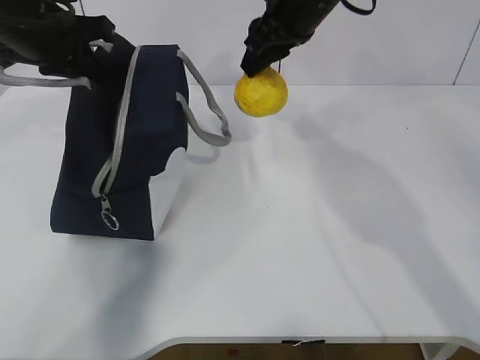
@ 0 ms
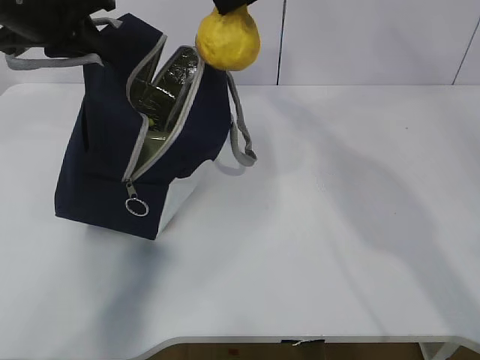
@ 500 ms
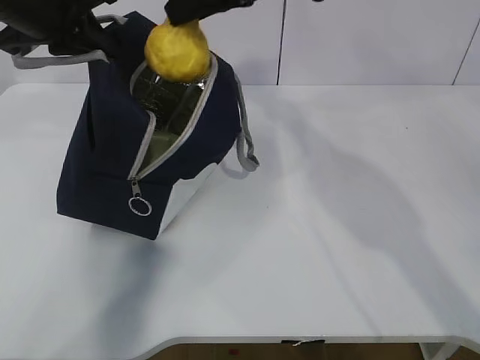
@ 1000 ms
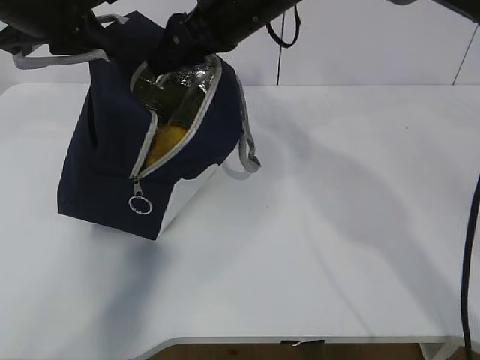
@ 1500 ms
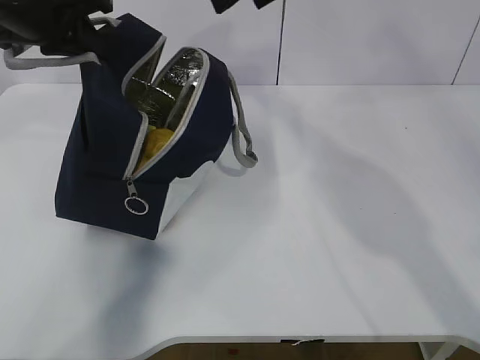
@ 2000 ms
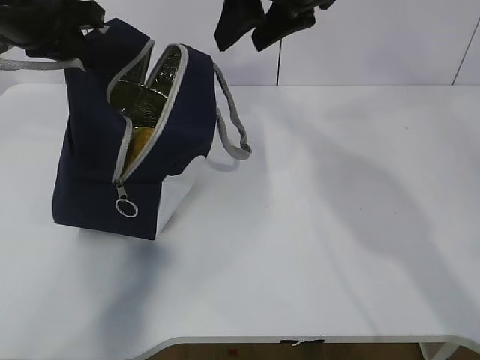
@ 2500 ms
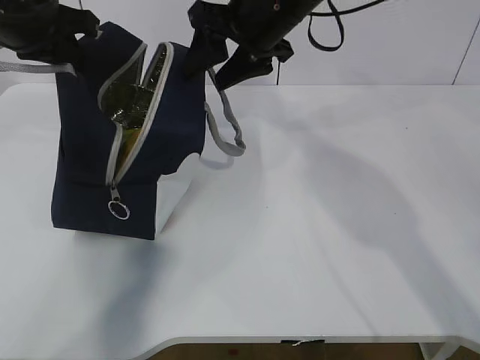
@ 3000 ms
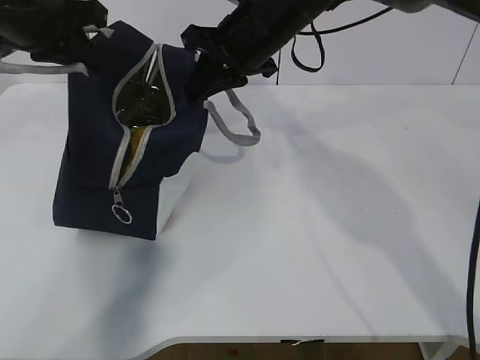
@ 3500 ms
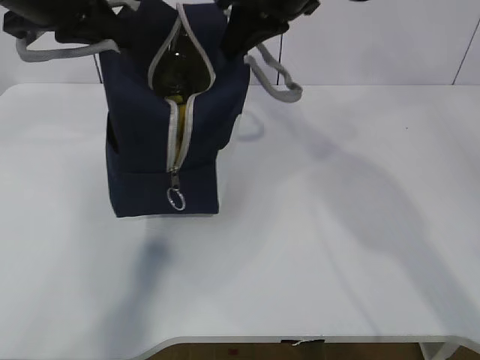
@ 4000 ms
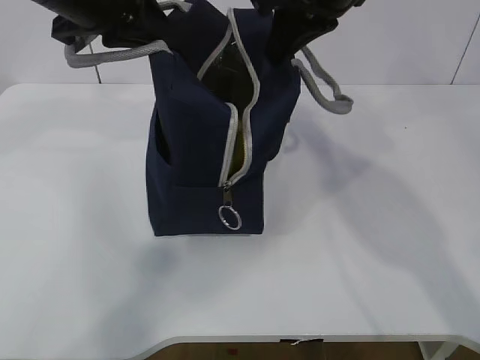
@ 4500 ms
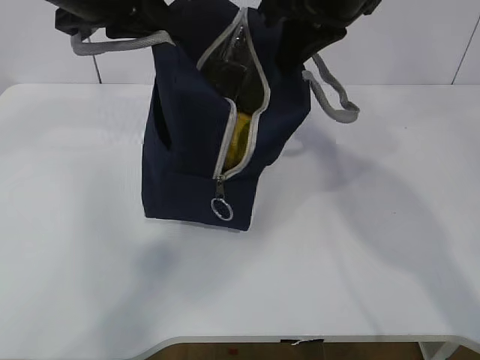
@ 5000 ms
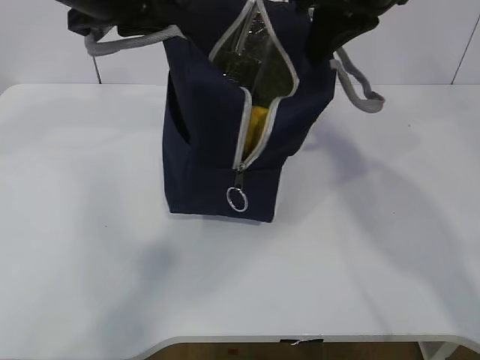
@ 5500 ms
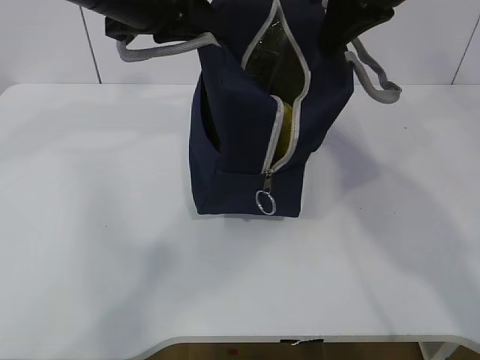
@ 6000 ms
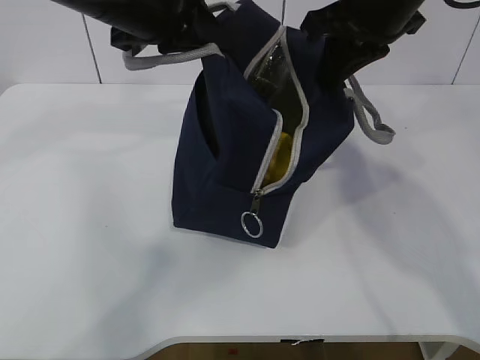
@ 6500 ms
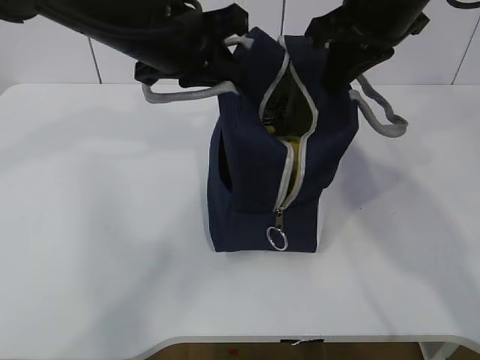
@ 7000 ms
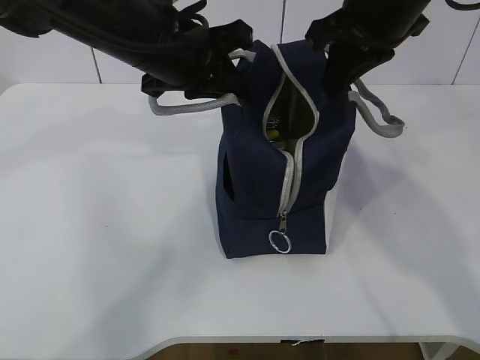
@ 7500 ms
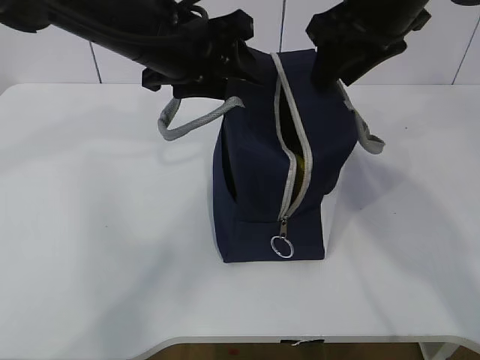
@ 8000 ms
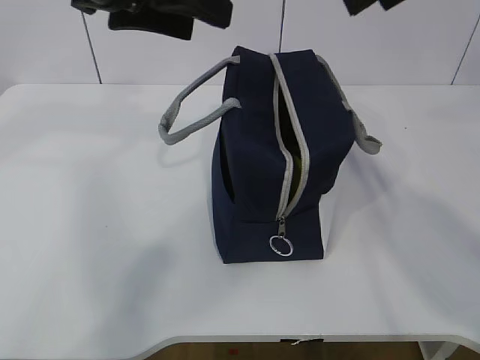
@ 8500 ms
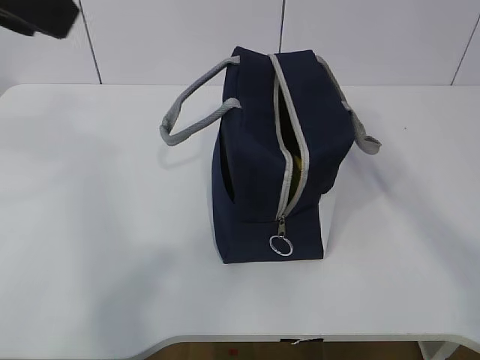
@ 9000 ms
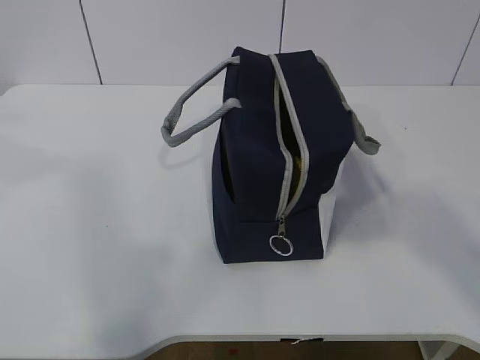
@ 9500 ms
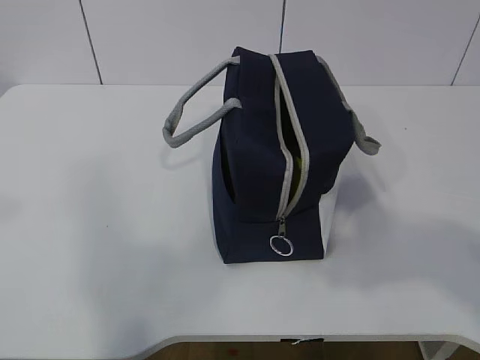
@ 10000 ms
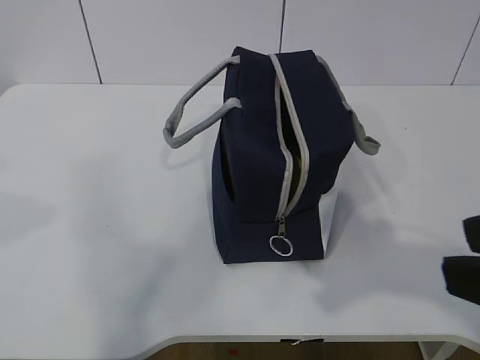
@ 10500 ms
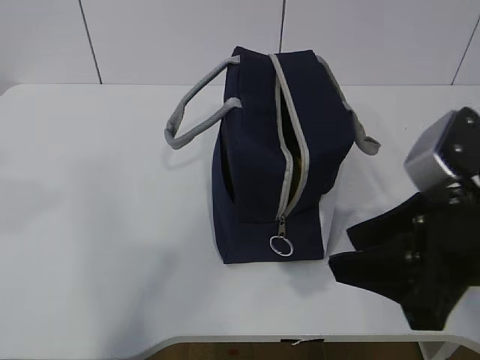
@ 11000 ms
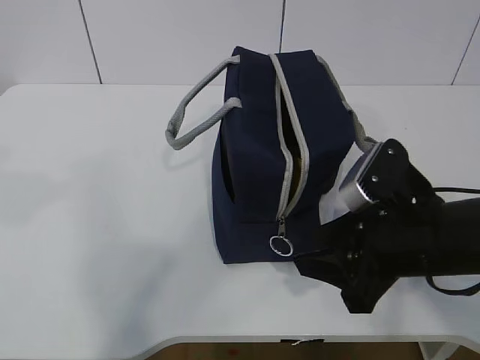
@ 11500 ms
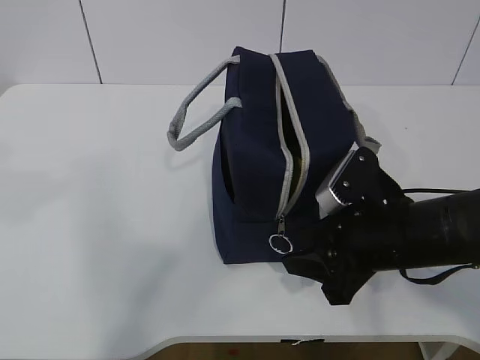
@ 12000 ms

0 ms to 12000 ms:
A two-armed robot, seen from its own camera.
0 ms to 2000 ms: The right gripper moves up and down over about 10 cm, changing direction 2 times, and opens up.
2000 ms to 4000 ms: The right gripper closes its fingers.
4000 ms to 6000 ms: Both grippers move to the right, approximately 10 cm.
6000 ms to 8000 ms: The right gripper opens; the left gripper shifts some 5 cm downward, and opens its fingers.
8000 ms to 10000 ms: The left gripper travels backward, to the left and upward by approximately 35 cm; the right gripper travels backward by about 30 cm.
10000 ms to 12000 ms: The left gripper shifts roughly 5 cm downward. Meanwhile the right gripper travels downward and forward by roughly 30 cm.

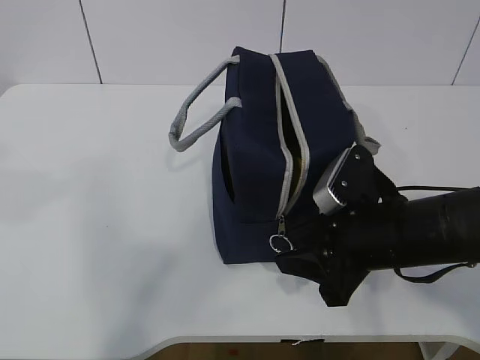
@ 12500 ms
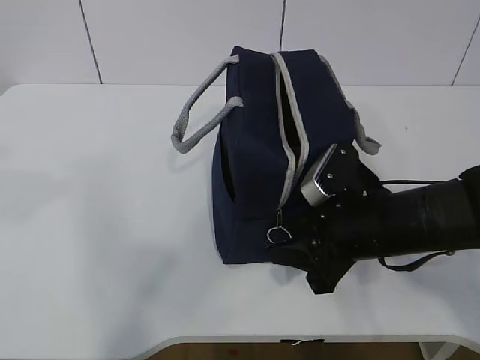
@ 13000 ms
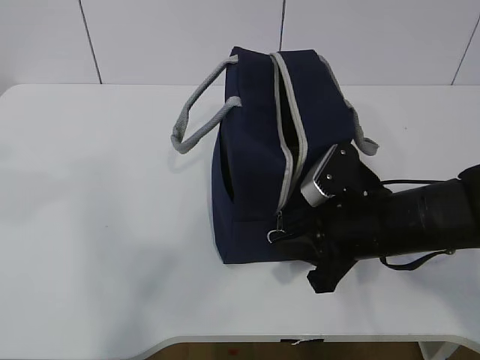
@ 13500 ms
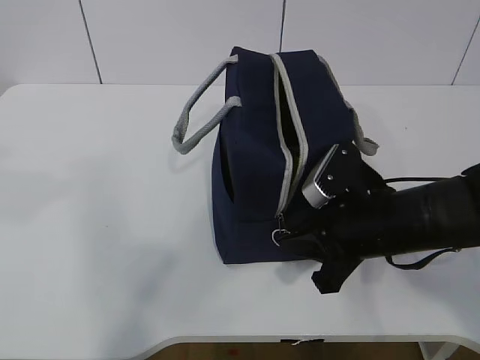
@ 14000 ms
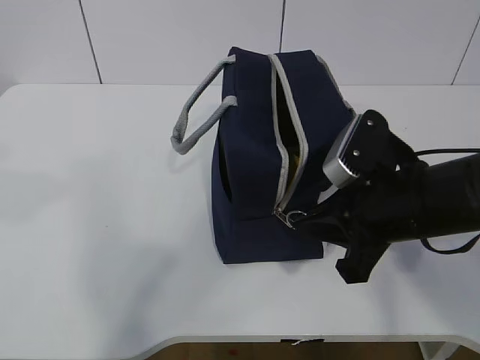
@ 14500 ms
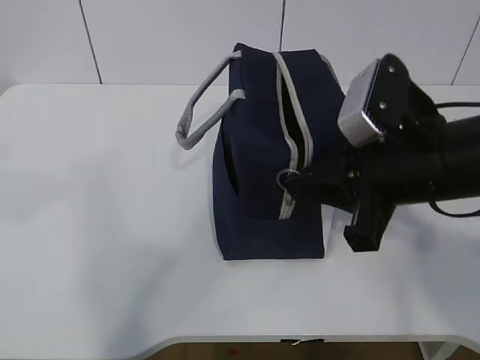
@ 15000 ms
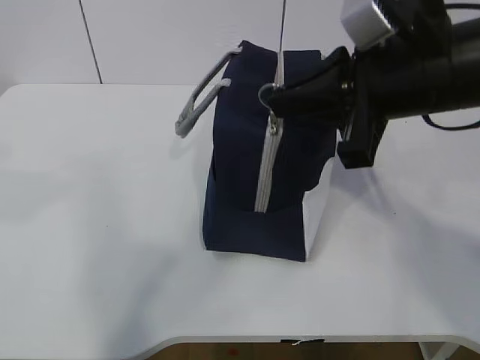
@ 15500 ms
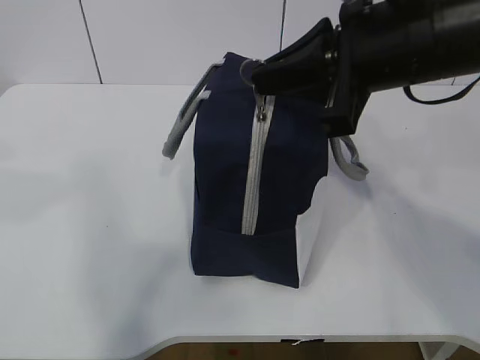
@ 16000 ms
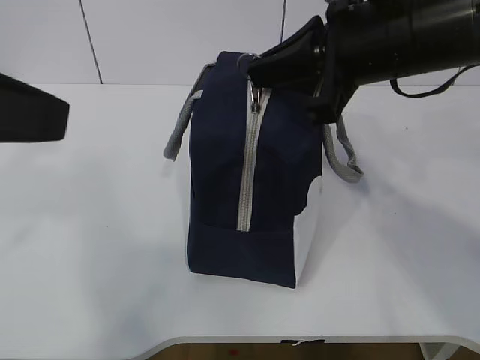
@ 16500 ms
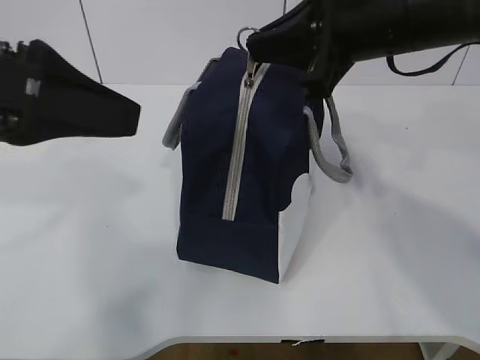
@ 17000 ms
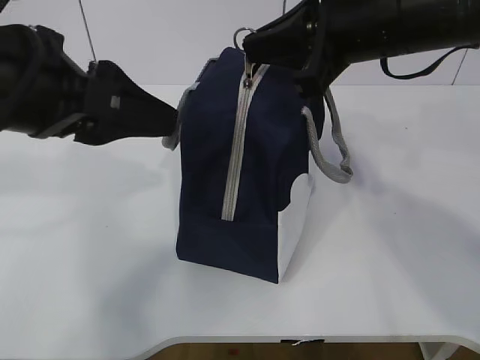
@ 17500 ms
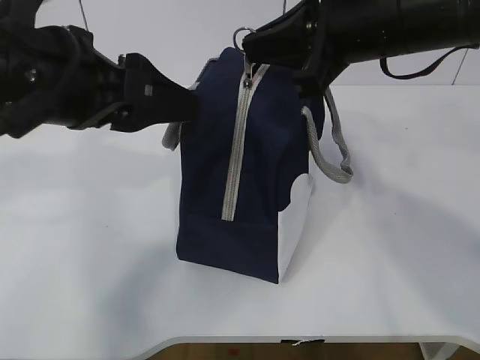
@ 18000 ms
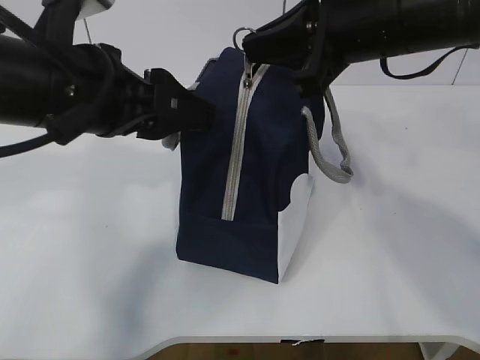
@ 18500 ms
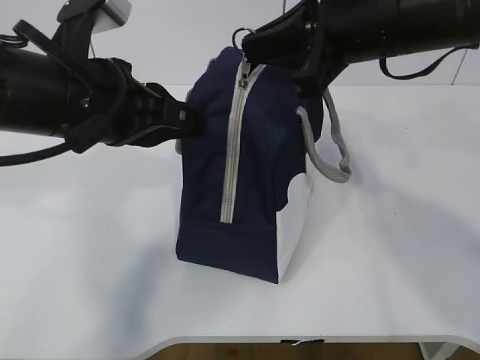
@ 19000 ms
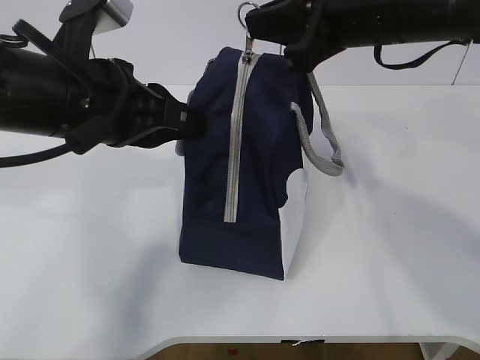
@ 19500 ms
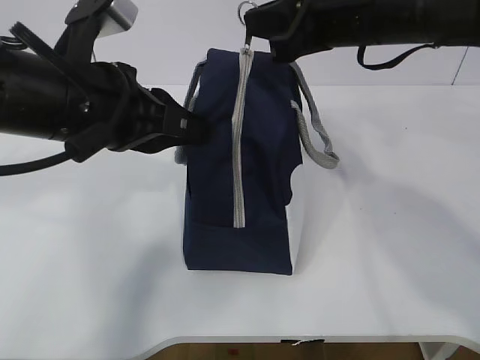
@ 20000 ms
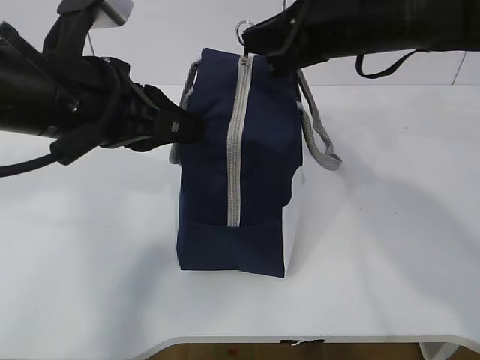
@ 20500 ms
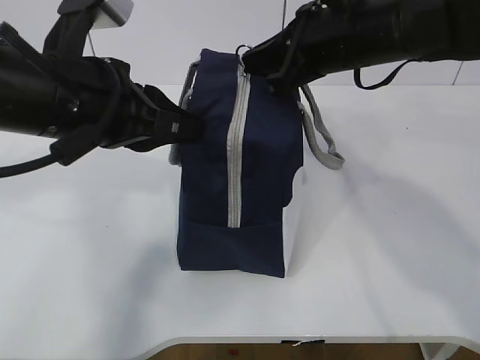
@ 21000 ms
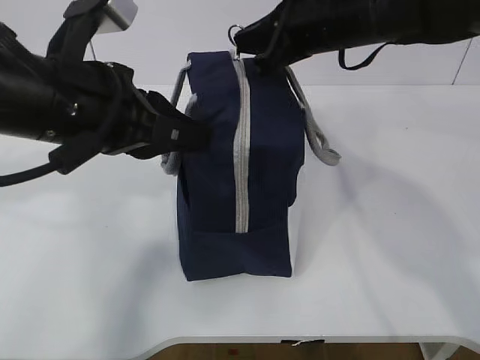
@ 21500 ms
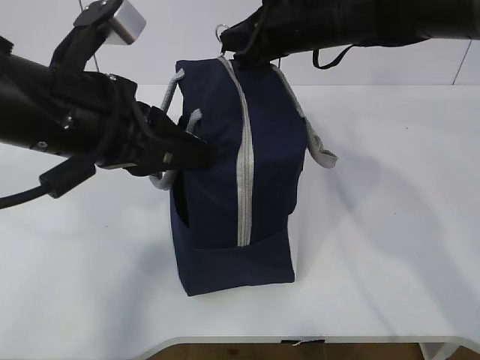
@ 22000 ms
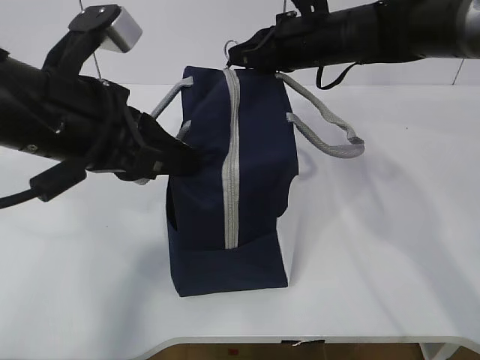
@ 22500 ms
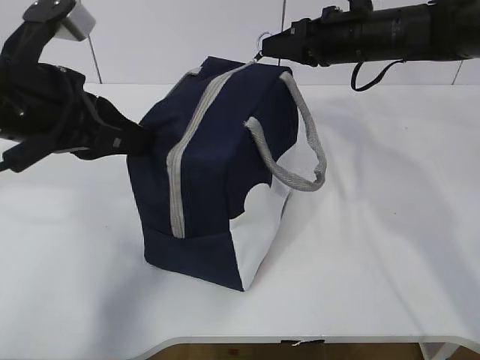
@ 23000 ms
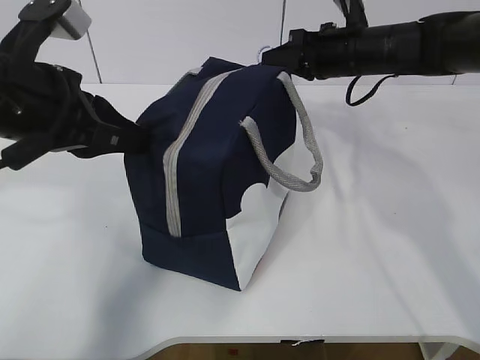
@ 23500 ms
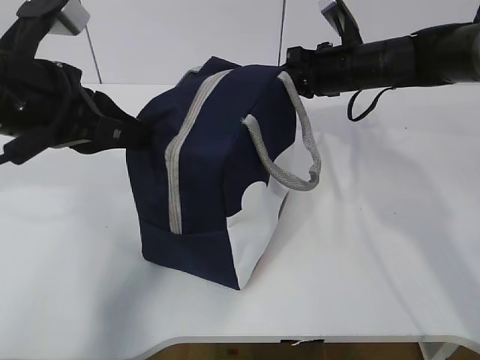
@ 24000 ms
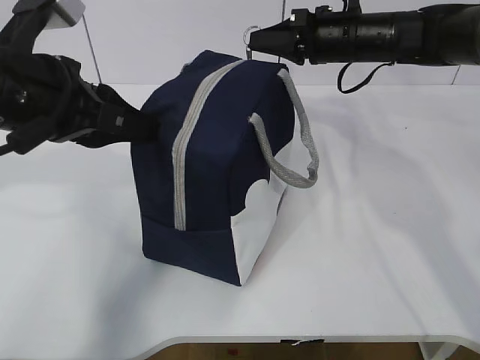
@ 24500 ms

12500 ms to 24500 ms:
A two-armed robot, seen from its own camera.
Step, 15500 ms to 19500 ms: Pull the zipper with your right hand.
Step, 20000 ms to 20500 ms: Grab the lunch bag with your left hand.
12500 ms to 14500 ms: The right gripper closes up.
14500 ms to 16500 ms: The left gripper shifts by approximately 5 cm, while the right gripper travels upward by about 15 cm.
16500 ms to 18500 ms: The left gripper travels forward, downward and to the right by approximately 15 cm.
18500 ms to 20500 ms: The left gripper closes up.
20500 ms to 22500 ms: The right gripper travels forward and downward by about 10 cm.
22500 ms to 24500 ms: The left gripper shifts by approximately 5 cm, while the right gripper moves approximately 5 cm.

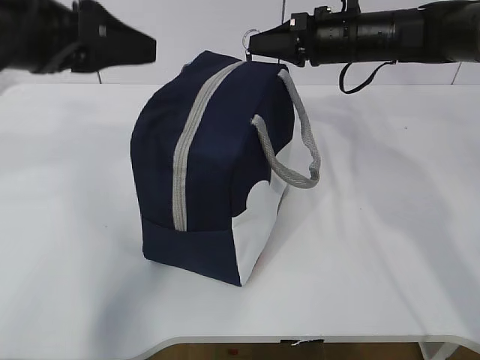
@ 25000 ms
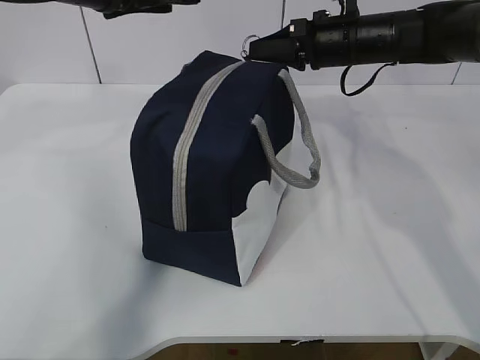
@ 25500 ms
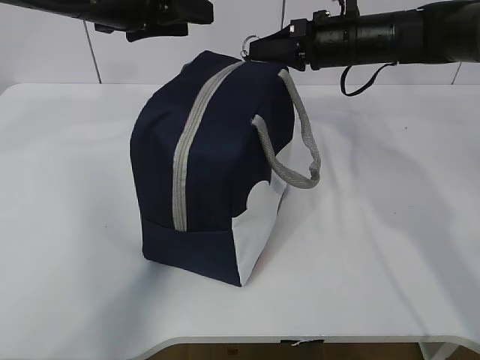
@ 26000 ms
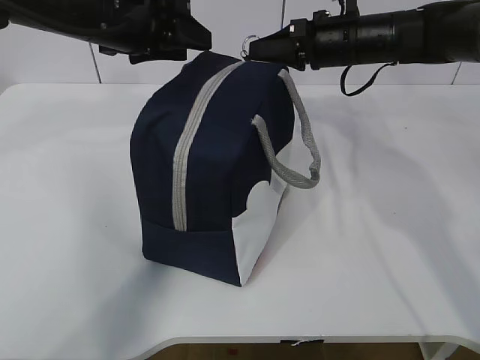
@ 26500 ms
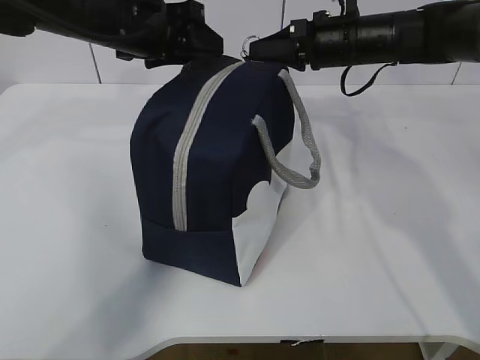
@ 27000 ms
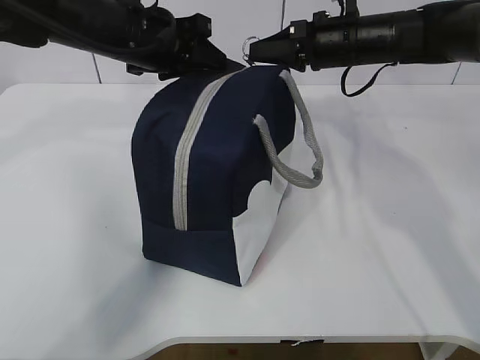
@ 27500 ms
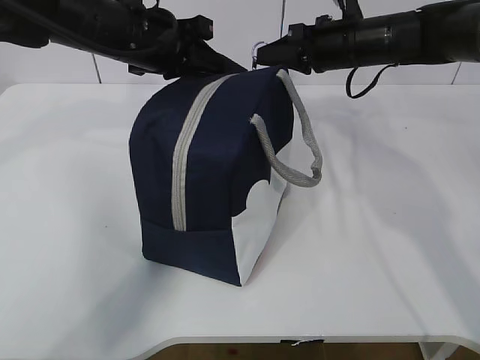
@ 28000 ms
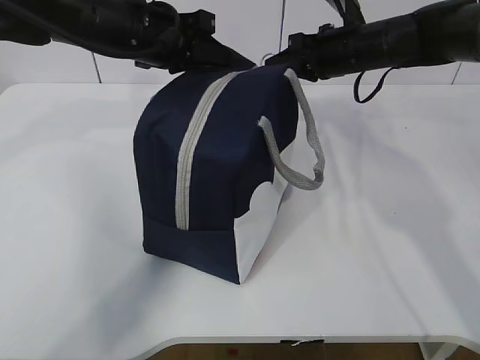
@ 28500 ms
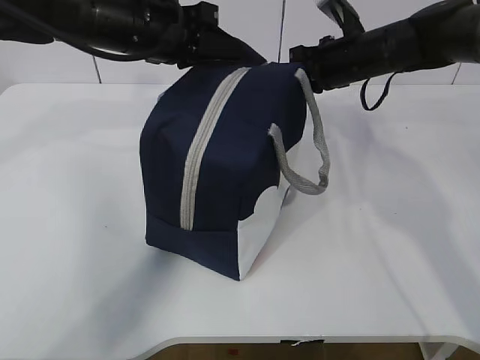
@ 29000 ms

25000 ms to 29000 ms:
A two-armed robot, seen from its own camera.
25000 ms to 27000 ms: The left gripper shifts some 15 cm forward.
27000 ms to 29000 ms: The left gripper closes.
